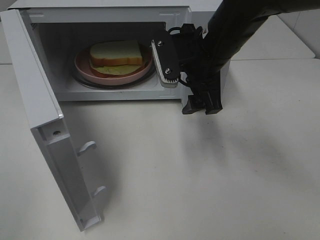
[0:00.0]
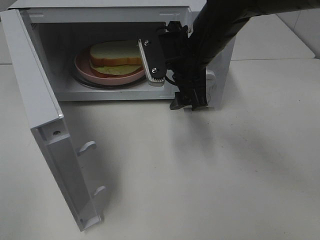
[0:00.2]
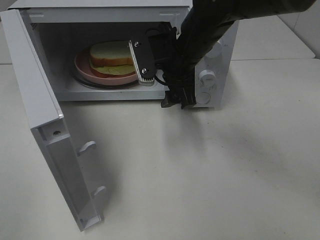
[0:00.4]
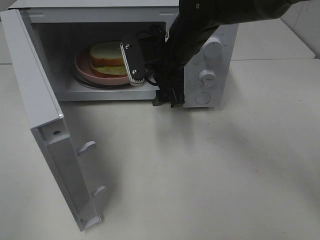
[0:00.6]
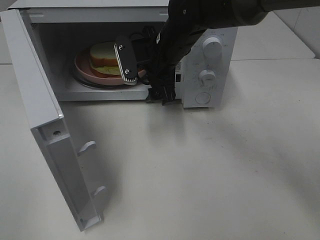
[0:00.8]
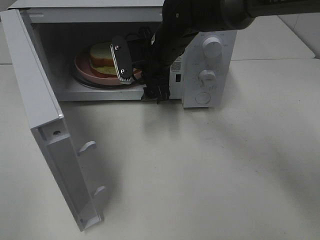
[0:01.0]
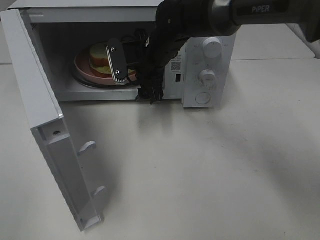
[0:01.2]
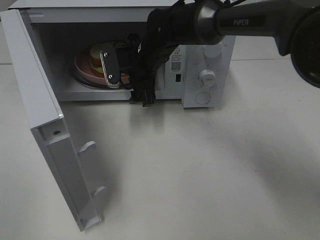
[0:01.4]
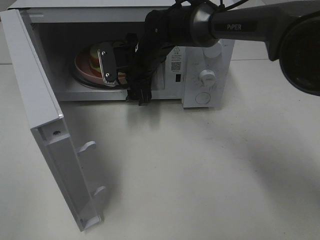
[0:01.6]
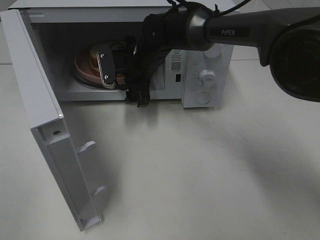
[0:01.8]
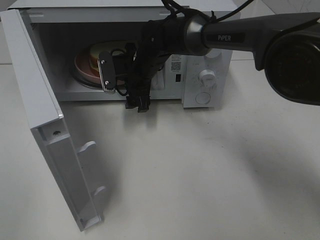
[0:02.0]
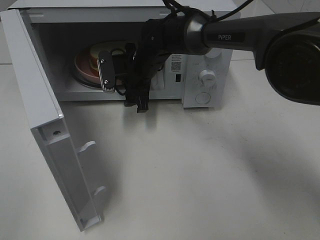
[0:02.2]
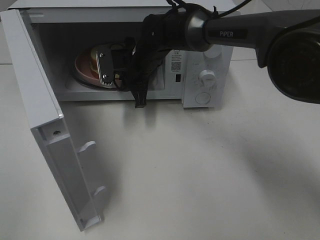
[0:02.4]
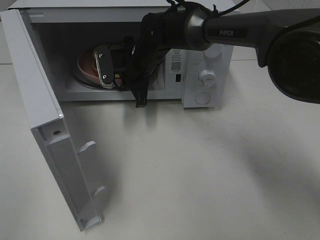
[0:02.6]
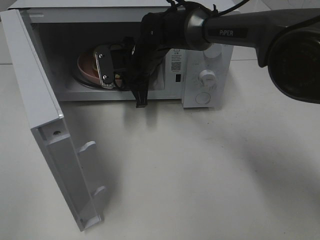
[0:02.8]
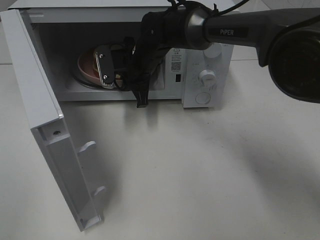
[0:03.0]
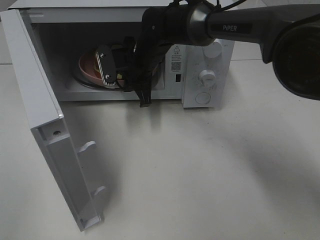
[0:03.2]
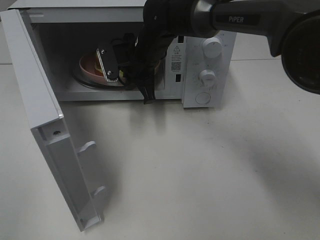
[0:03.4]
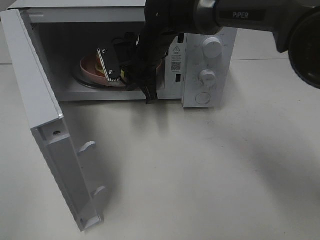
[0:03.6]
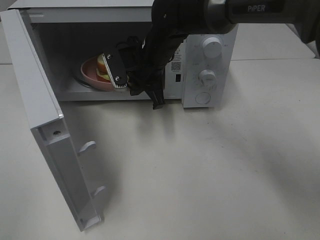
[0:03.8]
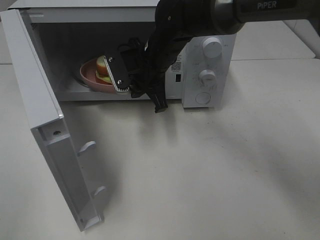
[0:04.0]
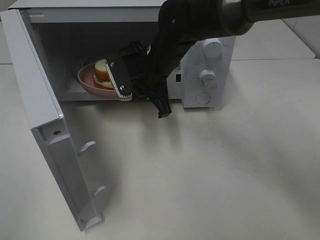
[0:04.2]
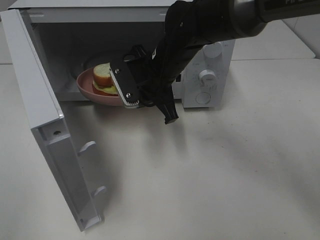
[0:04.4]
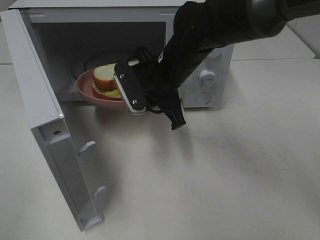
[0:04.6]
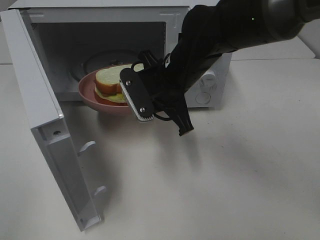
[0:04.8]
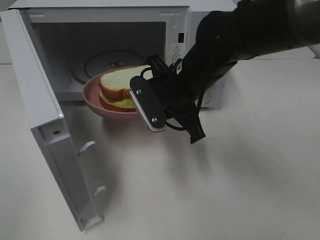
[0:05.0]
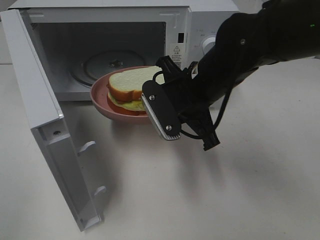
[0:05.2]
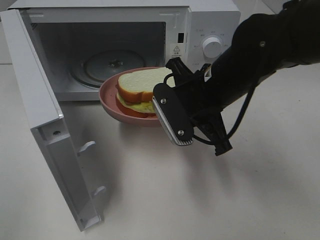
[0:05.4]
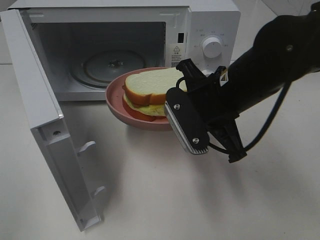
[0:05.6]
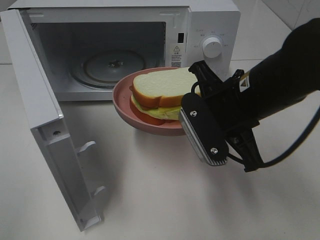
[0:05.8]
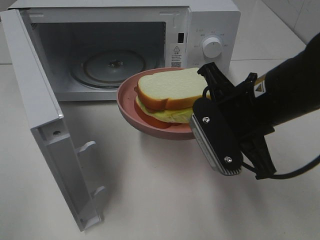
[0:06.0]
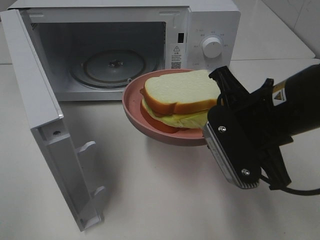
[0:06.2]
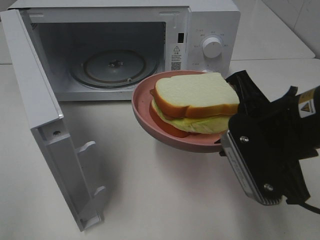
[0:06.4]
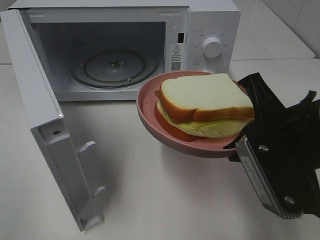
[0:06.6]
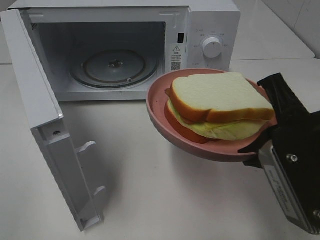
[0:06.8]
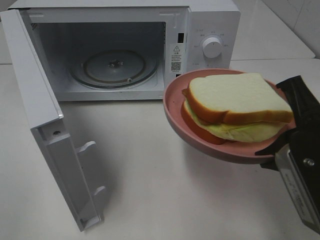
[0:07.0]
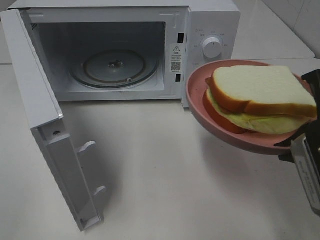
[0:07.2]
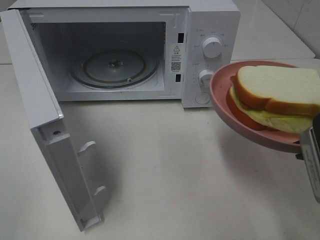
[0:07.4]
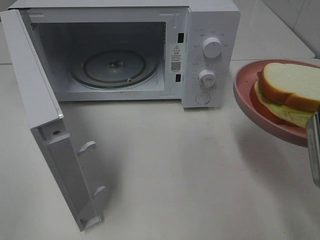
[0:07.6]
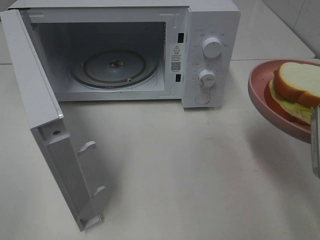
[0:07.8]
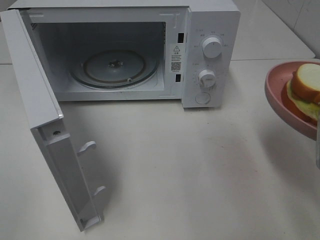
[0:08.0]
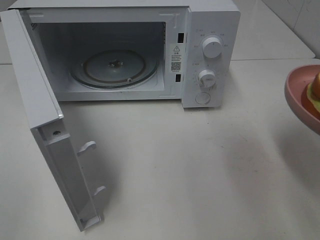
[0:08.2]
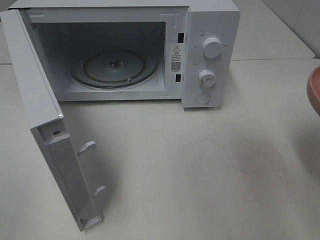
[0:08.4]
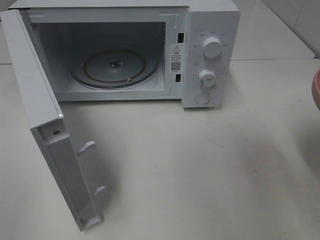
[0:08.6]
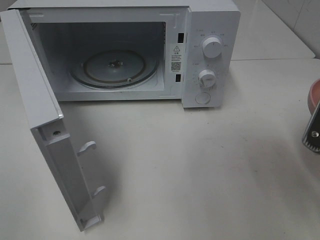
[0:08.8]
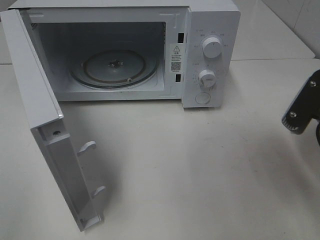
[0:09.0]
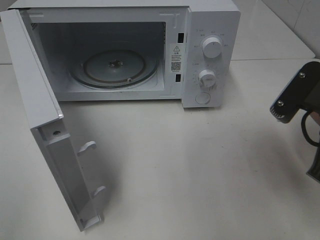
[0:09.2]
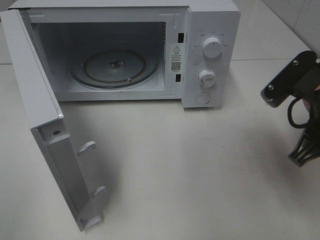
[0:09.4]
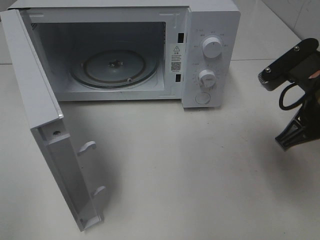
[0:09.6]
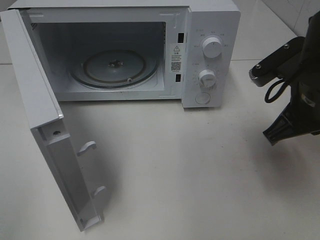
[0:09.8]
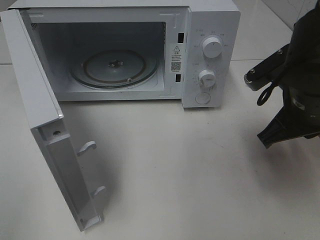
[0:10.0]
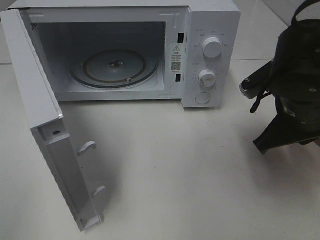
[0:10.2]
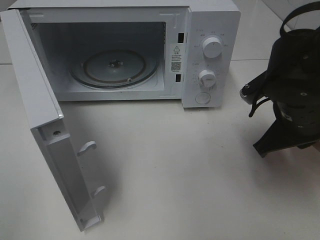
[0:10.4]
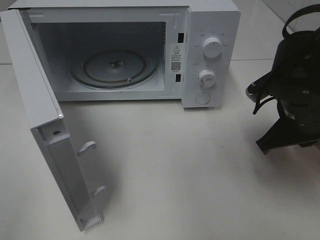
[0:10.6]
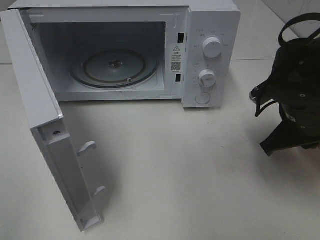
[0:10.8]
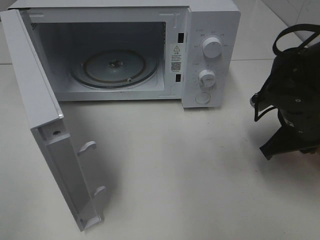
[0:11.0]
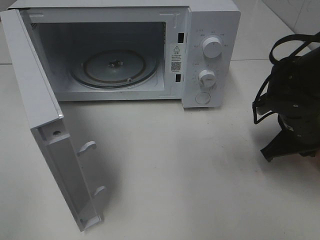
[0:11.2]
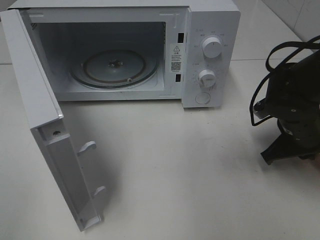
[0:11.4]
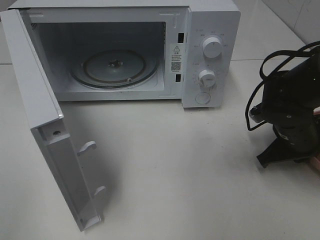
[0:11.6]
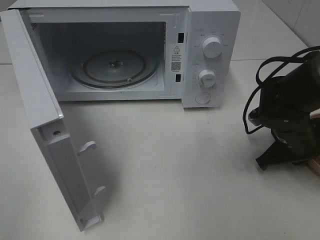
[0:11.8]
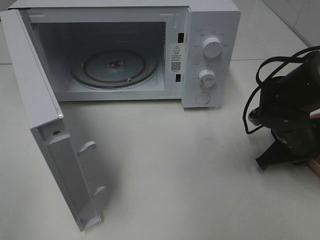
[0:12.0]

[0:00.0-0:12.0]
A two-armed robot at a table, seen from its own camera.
Task of the whole recording: Heat Sandwich.
Step, 0:00.0 to 0:03.4: Right hand: grab the plate with the sandwich.
0:00.0 to 0:01.6: The right gripper is displaced forward, to the left and downward by some 15 cm.
0:01.6 to 0:03.0: The right gripper closes up.
0:03.0 to 0:04.4: The right gripper heads backward, covering some 10 cm.
0:04.4 to 0:06.0: The right gripper travels backward and to the right by about 20 cm.
0:06.0 to 0:07.6: The right gripper moves to the right and backward, about 15 cm.
0:09.0 to 0:10.4: The right gripper goes approximately 10 cm forward.
0:10.4 to 0:12.0: The right gripper heads downward, covering about 10 cm.

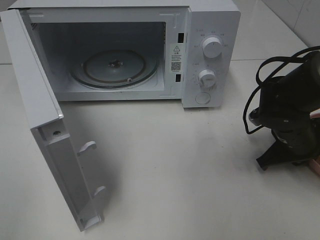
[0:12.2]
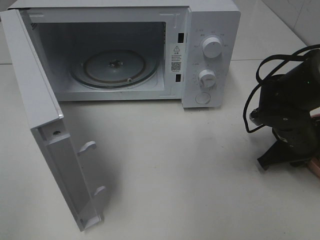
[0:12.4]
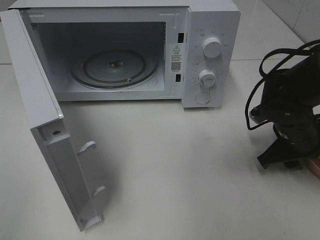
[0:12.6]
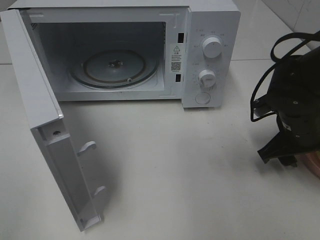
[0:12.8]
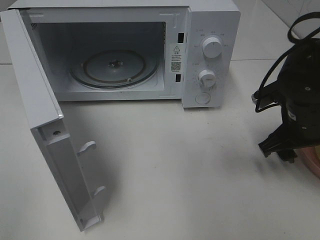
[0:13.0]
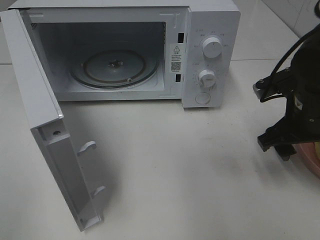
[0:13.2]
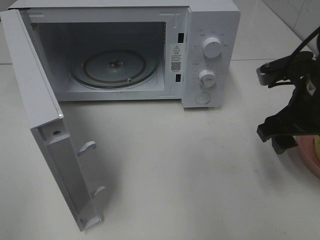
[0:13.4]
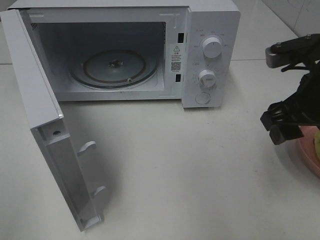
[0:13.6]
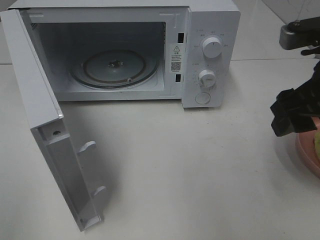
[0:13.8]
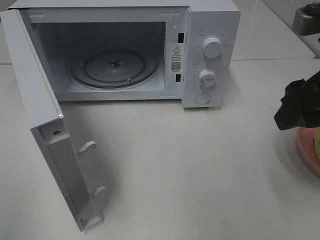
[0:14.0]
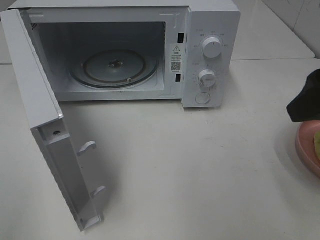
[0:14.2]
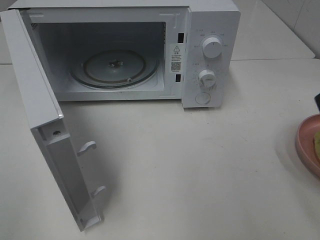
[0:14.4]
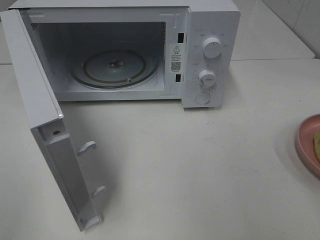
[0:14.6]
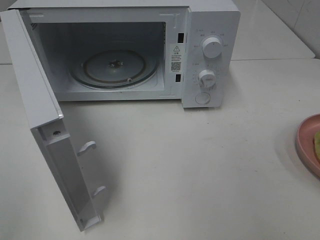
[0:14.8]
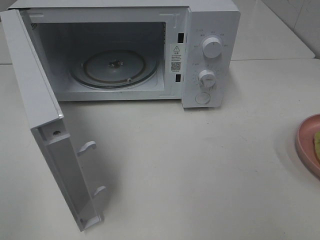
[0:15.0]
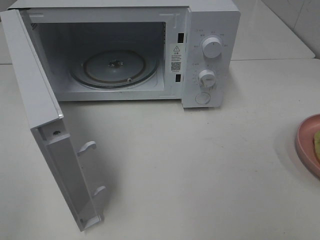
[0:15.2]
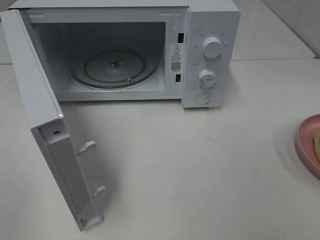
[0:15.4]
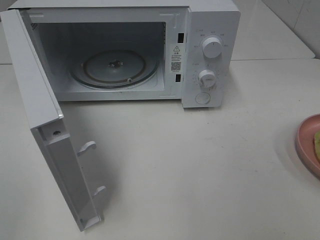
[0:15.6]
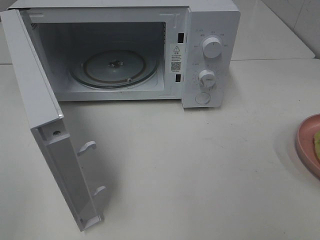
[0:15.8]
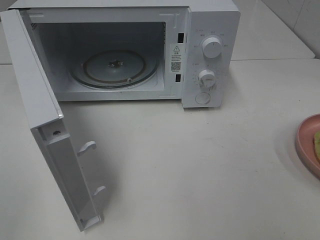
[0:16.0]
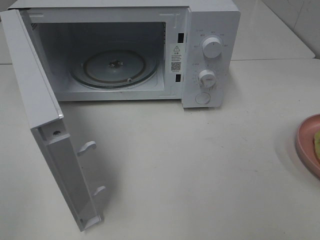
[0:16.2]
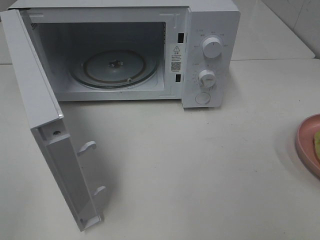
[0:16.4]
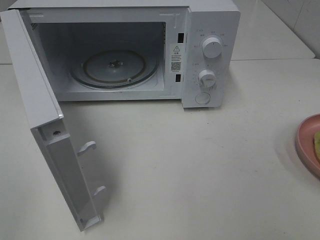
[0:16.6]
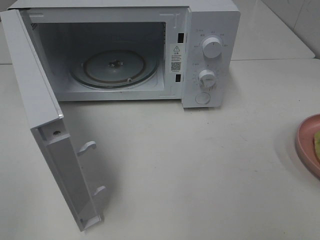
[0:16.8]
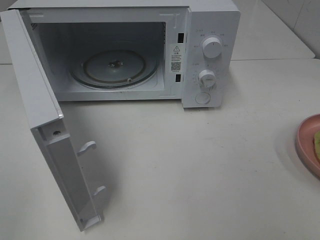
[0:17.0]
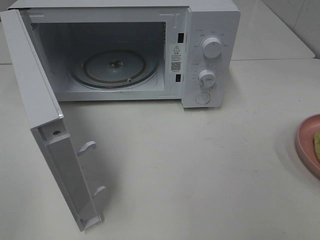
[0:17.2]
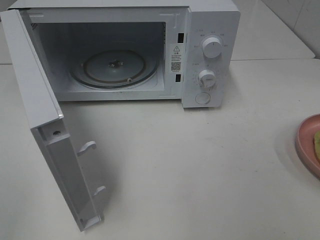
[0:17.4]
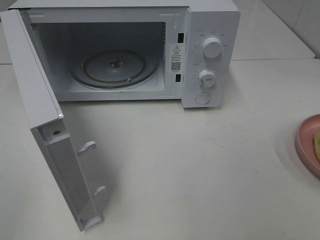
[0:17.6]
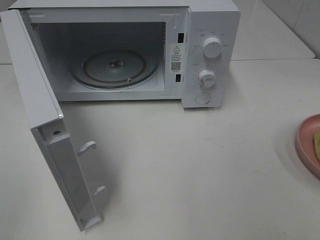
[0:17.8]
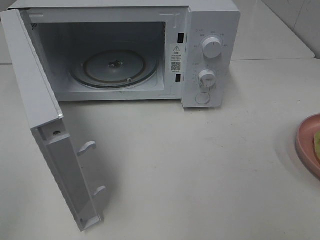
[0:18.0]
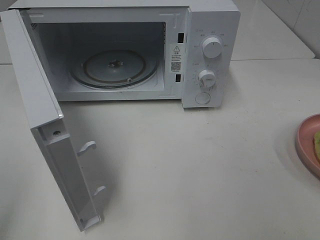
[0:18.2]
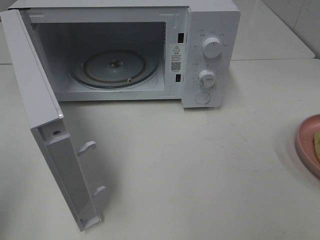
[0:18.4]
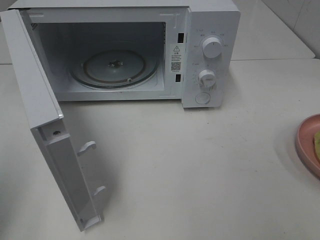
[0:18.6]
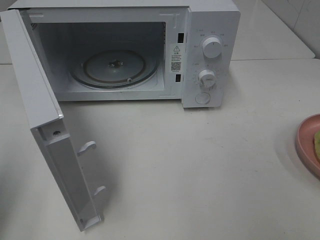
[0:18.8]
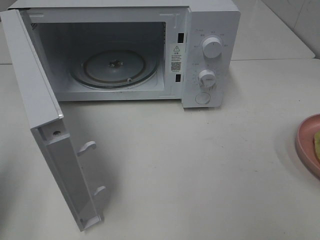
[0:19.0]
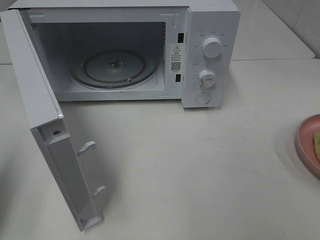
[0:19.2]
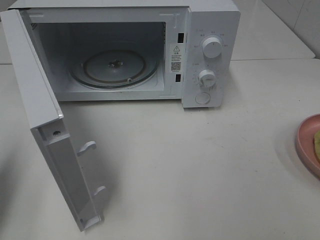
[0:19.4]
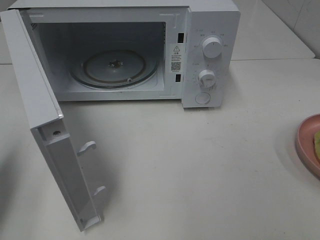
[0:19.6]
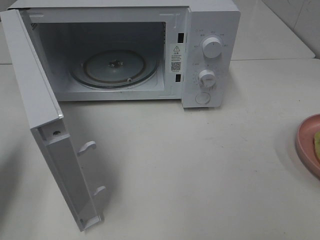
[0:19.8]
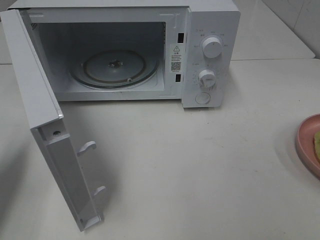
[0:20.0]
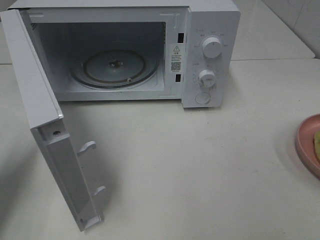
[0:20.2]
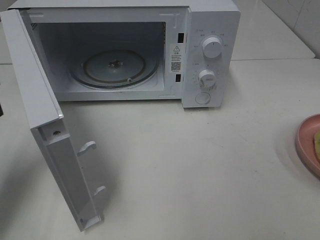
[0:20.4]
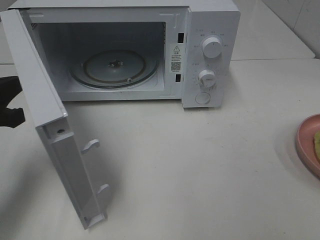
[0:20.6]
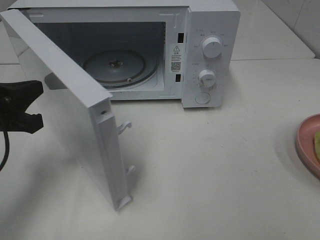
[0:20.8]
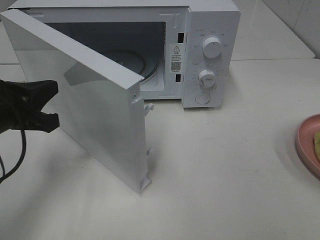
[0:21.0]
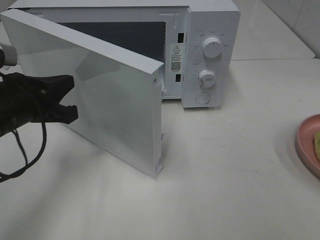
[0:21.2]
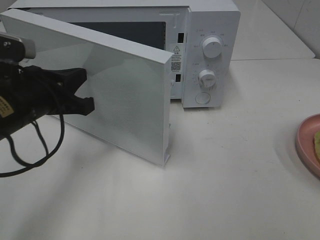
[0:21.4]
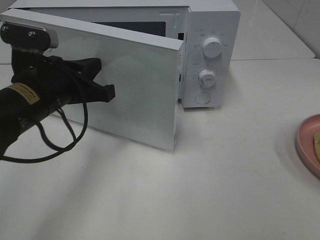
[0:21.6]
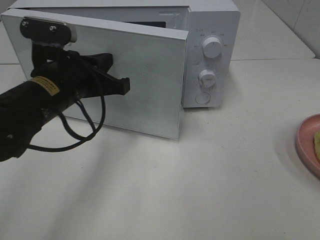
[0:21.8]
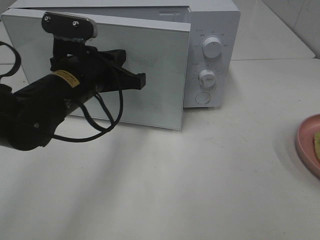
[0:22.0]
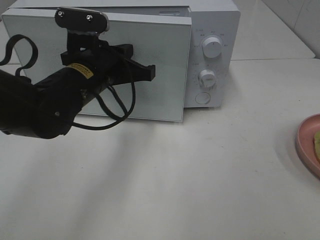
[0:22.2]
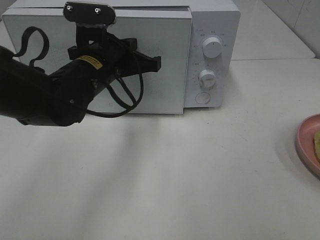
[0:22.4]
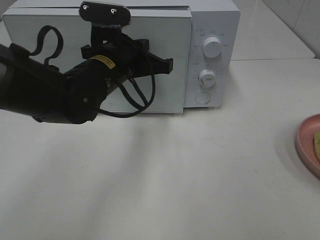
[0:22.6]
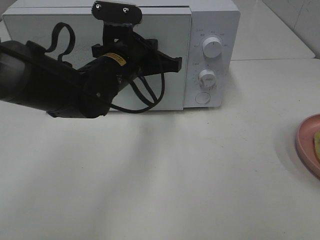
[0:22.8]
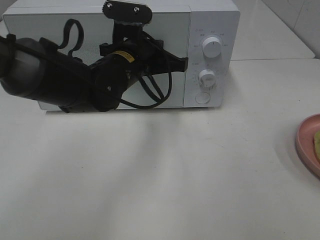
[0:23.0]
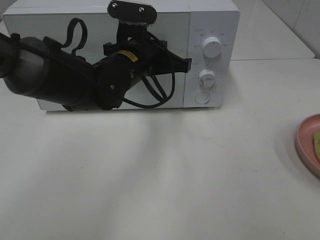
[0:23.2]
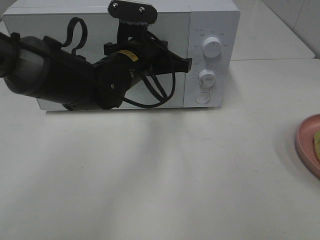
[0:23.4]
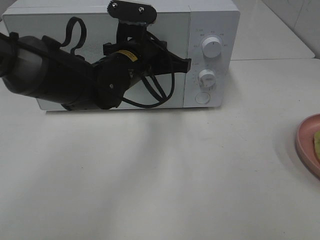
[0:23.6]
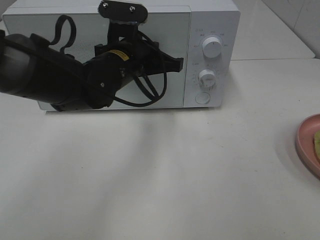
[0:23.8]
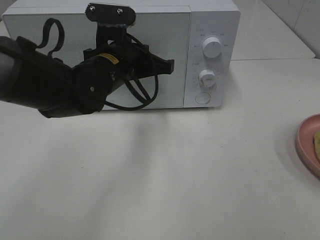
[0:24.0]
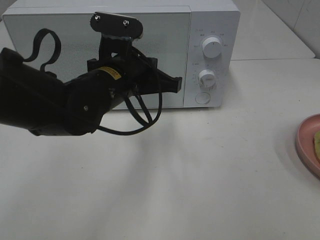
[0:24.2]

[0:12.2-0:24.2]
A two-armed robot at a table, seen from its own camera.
Task of the whole recording: Heat Sandwich.
0:12.2 to 0:13.8: The right gripper moves upward and backward, some 20 cm, and opens up.
0:13.8 to 0:15.2: The right gripper travels backward by approximately 20 cm.
0:18.2 to 0:19.8: The left gripper moves forward and downward, about 20 cm, and closes up.
0:19.8 to 0:21.2: The left gripper shifts about 10 cm to the right.
0:21.2 to 0:22.6: The left gripper moves to the right and forward, about 15 cm.
0:22.6 to 0:24.2: There are only small adjustments of the grippers.
